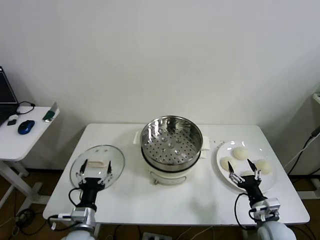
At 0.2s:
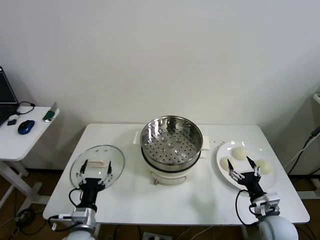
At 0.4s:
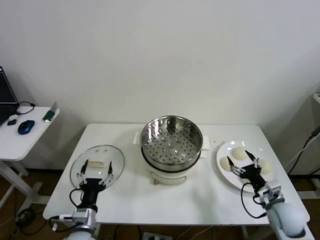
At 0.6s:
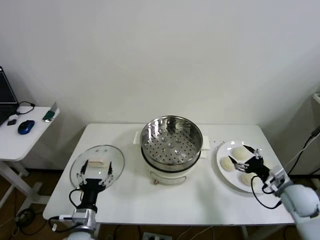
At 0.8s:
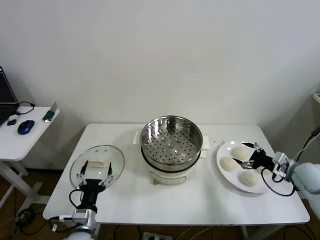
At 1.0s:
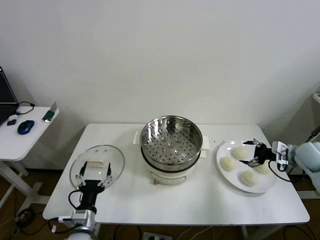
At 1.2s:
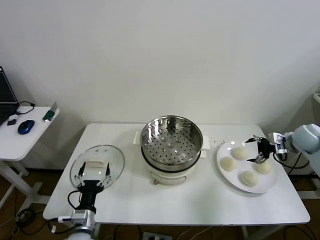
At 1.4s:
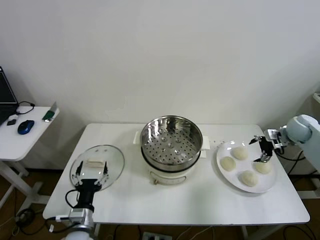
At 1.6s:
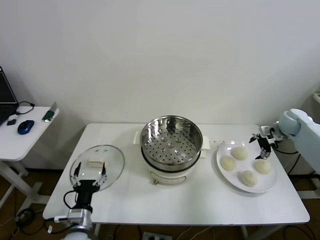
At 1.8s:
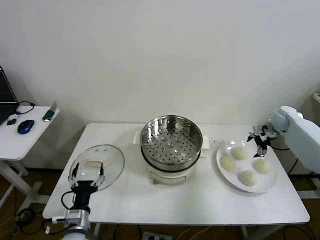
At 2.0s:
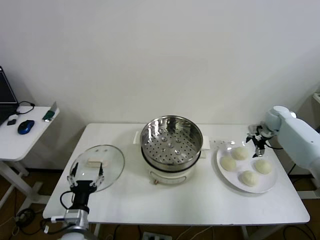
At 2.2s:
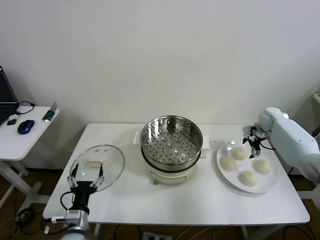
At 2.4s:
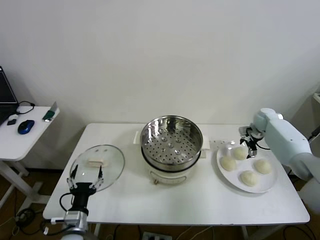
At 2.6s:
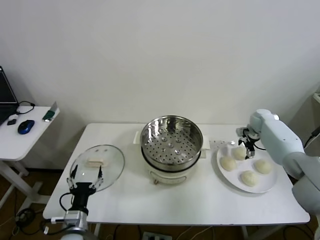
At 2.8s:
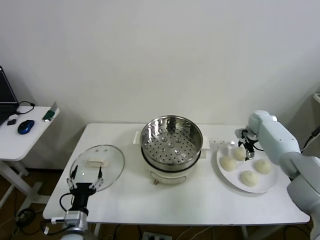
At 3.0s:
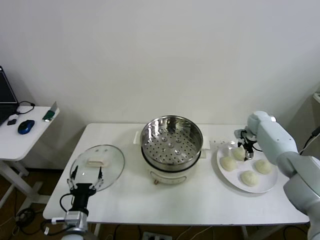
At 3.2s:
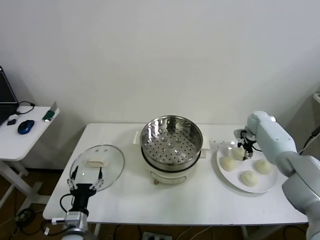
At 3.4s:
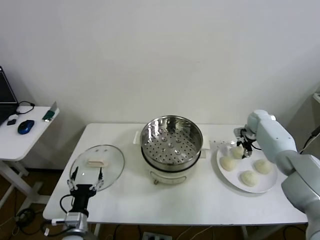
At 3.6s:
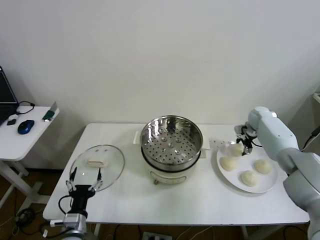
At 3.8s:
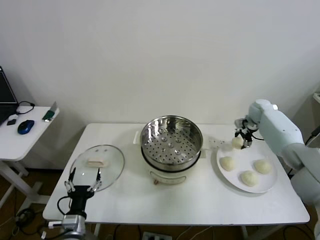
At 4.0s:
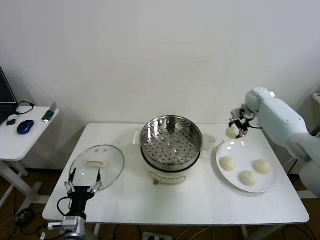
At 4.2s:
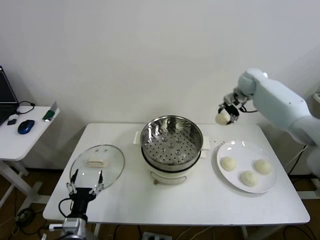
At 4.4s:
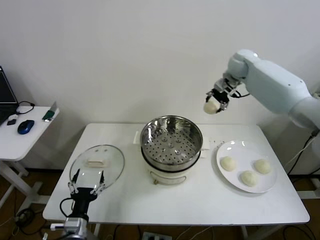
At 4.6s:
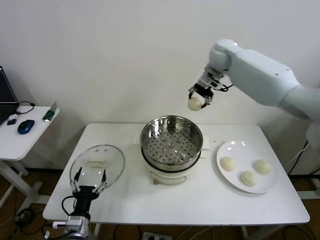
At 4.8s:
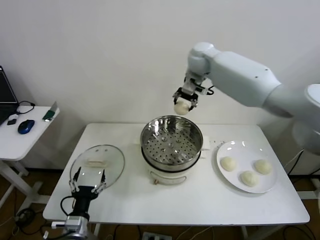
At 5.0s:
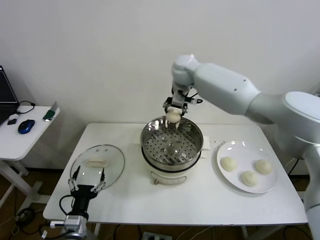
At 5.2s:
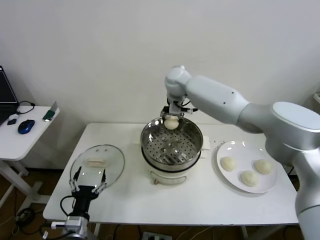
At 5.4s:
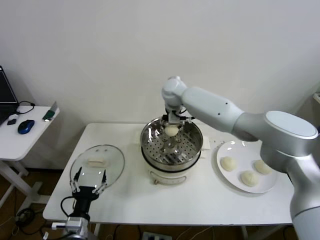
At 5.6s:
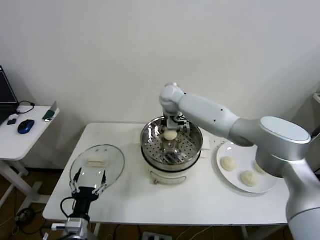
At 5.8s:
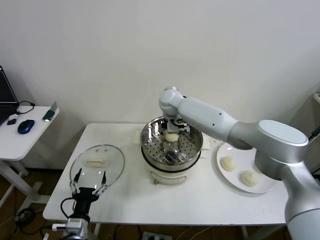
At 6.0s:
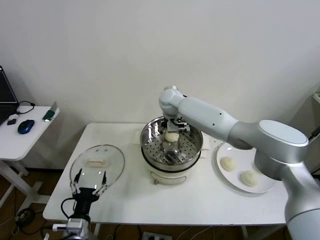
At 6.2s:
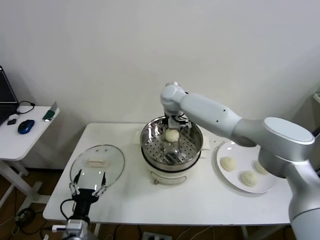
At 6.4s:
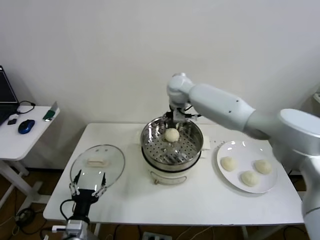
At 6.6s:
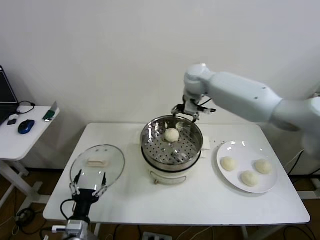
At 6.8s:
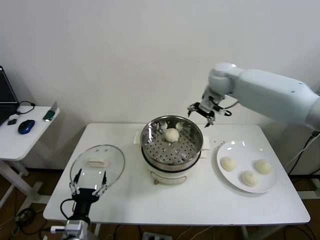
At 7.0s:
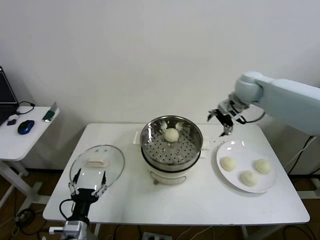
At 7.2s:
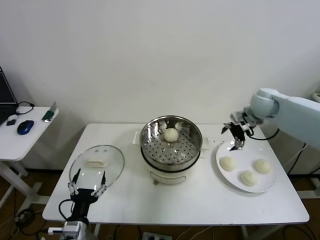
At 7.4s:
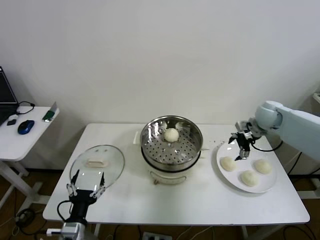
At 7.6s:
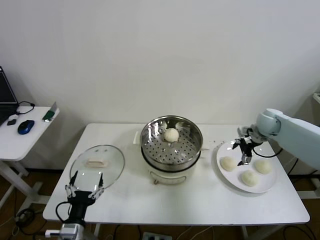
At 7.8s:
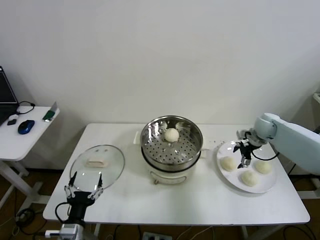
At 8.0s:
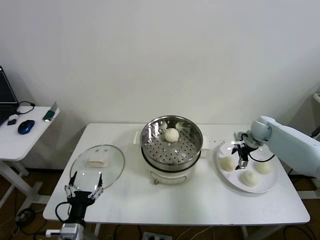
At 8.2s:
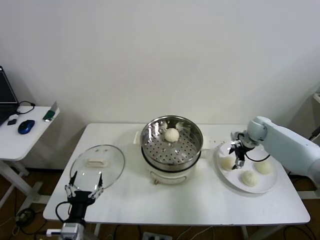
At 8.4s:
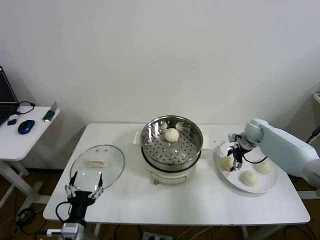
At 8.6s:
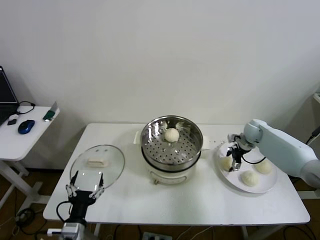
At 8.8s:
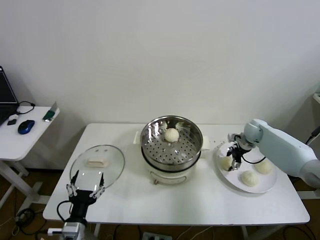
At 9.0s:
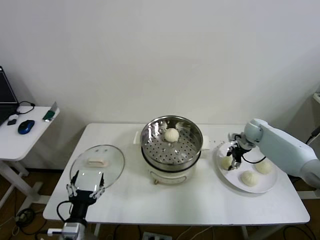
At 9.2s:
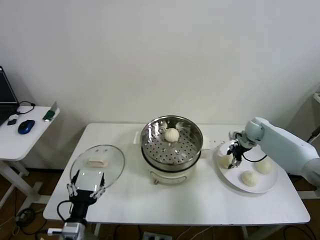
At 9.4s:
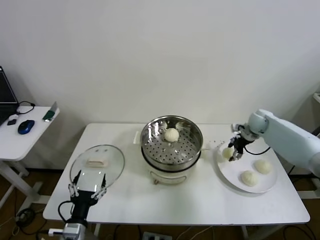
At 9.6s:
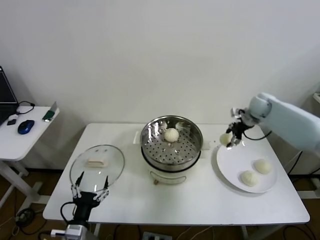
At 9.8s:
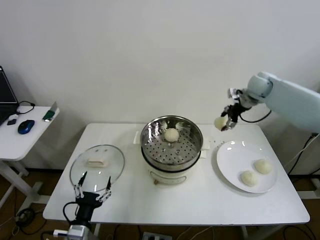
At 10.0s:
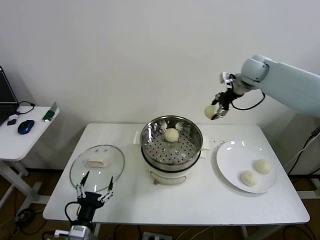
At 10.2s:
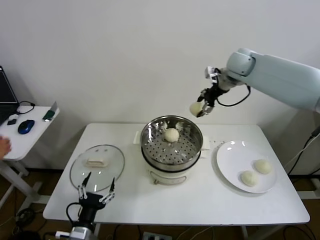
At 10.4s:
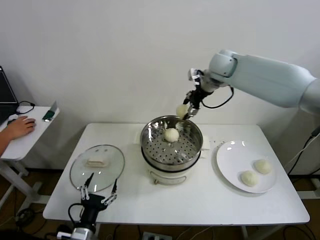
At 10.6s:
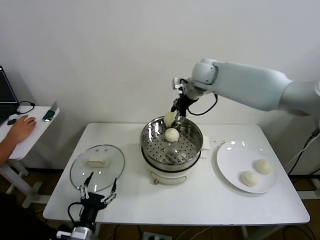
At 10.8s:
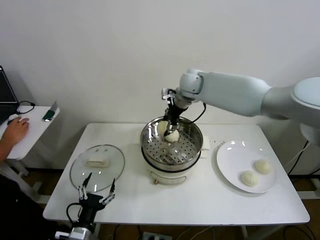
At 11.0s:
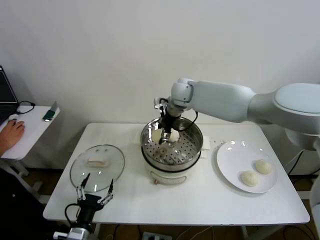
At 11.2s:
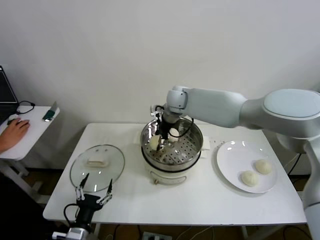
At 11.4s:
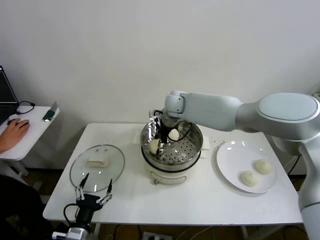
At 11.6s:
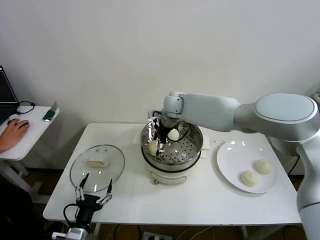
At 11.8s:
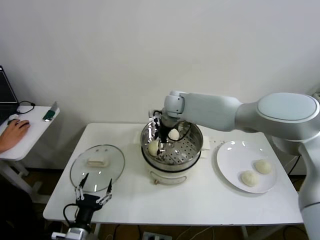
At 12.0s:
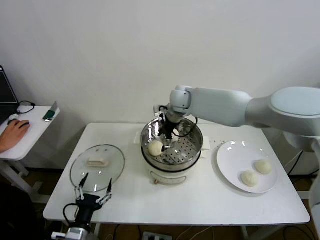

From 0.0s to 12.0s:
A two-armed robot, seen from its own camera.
Step, from 0.0s to 3.2s: Grasp the baozi in the plate with right gripper.
Step, from 3.4s to 6.0s: Place the baozi on the steamer with right gripper.
Step, from 6.2s to 9.0s: Grasp the baozi in the plate with right gripper.
Step, from 9.2s to 11.8s: Place the baozi on the steamer with right gripper.
From 1.6s to 3.0s: The right gripper travels downward, to the left and forward by some 10 cm, and closes up.
From 3.0s to 4.4s: The right gripper is displaced upward and to the left by roughly 35 cm.
From 4.4s to 6.0s: The right gripper moves to the left and downward, about 25 cm, and opens its fingers.
From 6.0s to 7.6s: The right gripper travels to the right by about 35 cm.
From 7.6s to 9.0s: The right gripper travels downward by roughly 5 cm, and closes up.
From 9.0s to 10.4s: The right gripper goes some 35 cm upward and to the left.
From 10.4s to 12.0s: The right gripper goes about 15 cm downward and to the left, and opens its fingers.

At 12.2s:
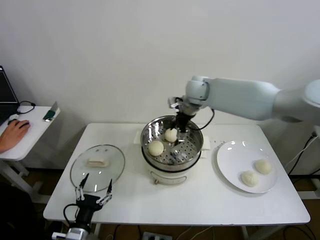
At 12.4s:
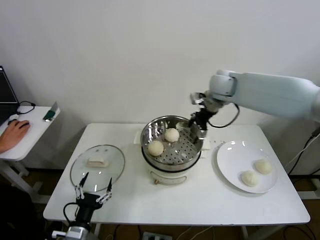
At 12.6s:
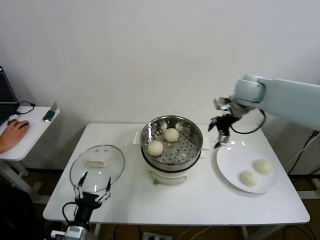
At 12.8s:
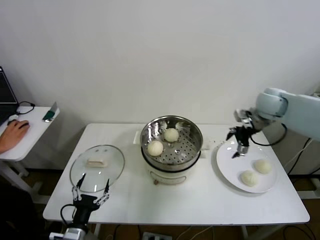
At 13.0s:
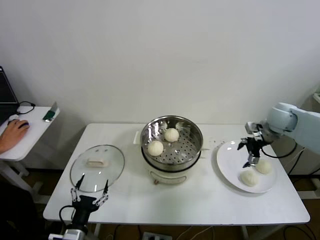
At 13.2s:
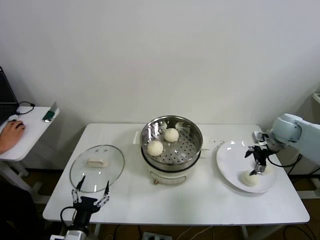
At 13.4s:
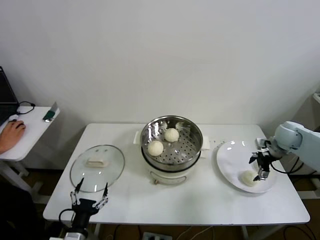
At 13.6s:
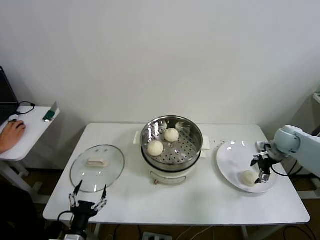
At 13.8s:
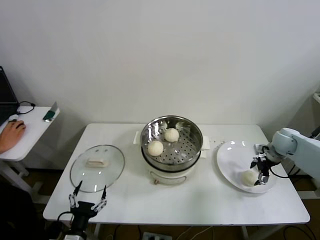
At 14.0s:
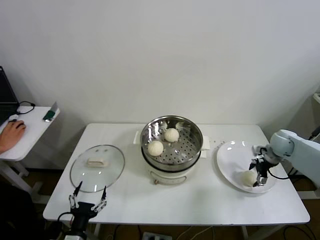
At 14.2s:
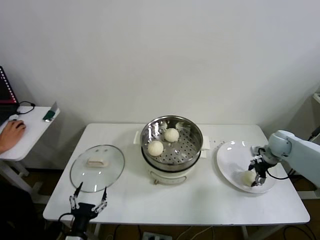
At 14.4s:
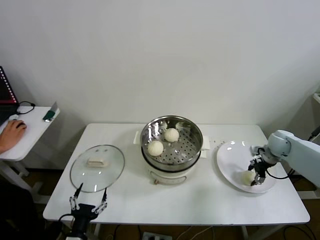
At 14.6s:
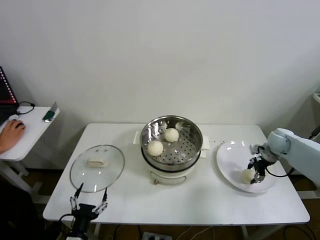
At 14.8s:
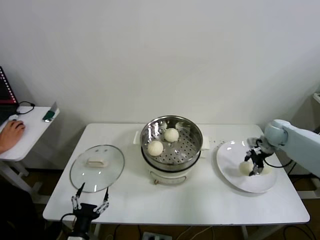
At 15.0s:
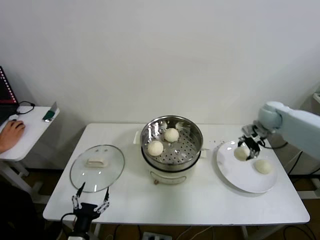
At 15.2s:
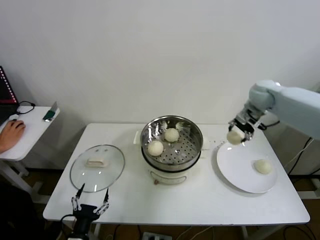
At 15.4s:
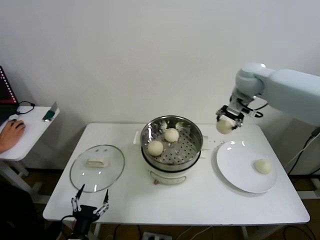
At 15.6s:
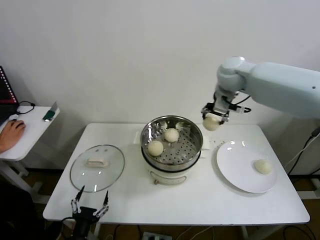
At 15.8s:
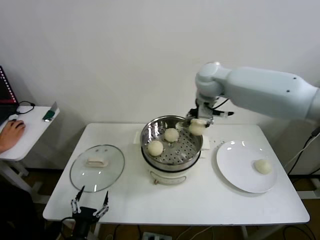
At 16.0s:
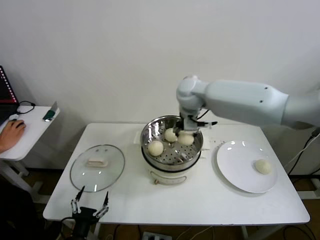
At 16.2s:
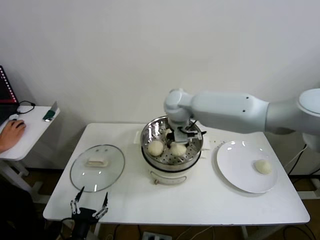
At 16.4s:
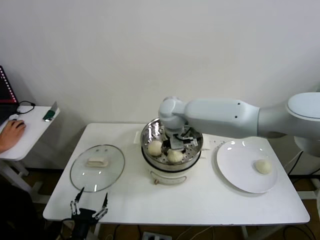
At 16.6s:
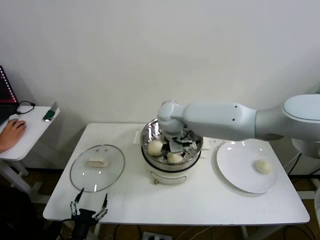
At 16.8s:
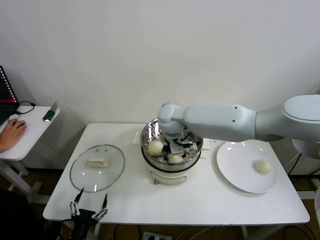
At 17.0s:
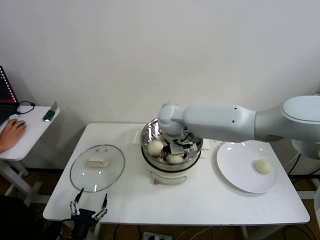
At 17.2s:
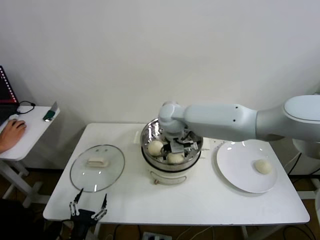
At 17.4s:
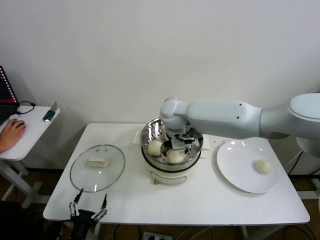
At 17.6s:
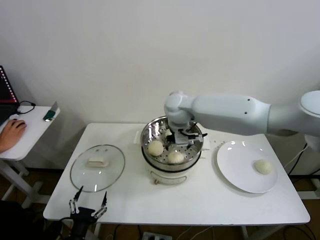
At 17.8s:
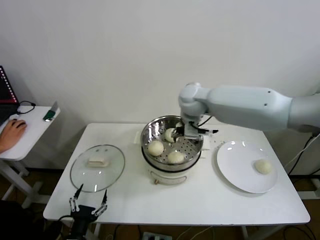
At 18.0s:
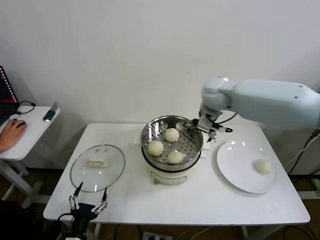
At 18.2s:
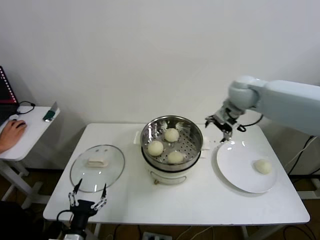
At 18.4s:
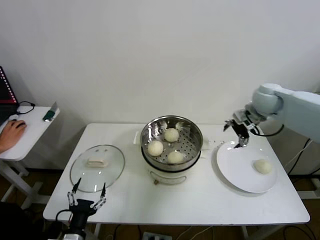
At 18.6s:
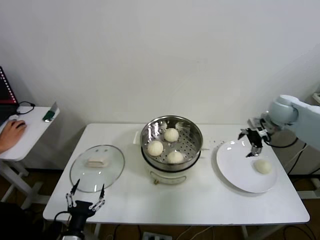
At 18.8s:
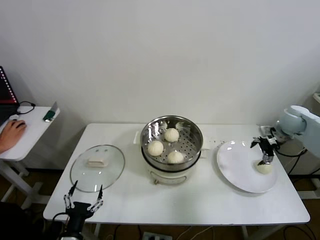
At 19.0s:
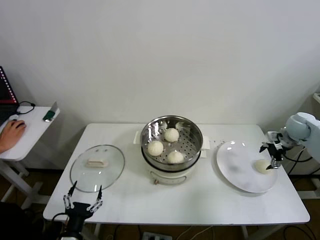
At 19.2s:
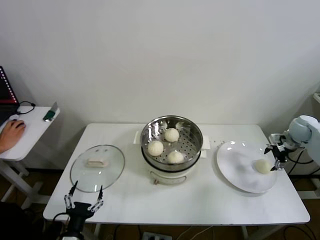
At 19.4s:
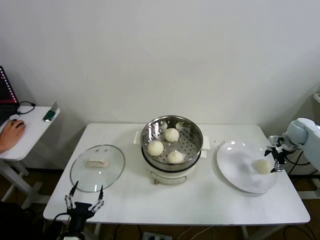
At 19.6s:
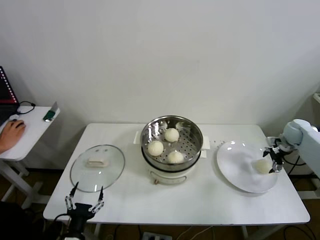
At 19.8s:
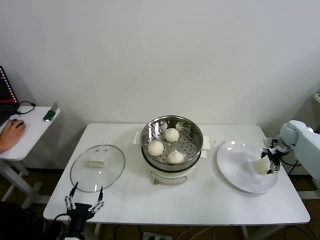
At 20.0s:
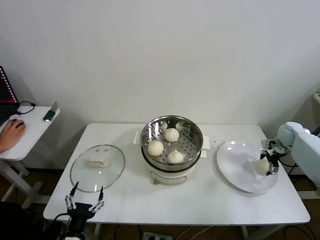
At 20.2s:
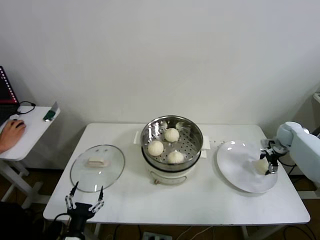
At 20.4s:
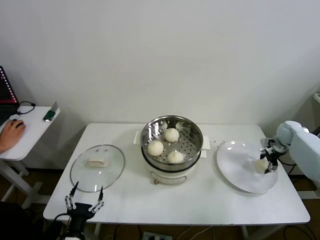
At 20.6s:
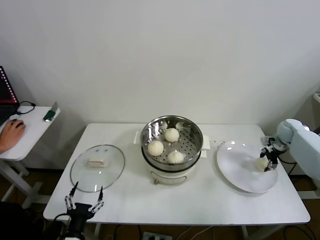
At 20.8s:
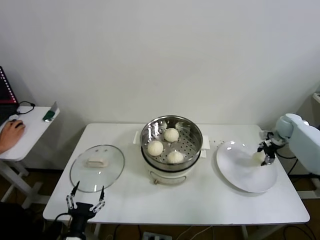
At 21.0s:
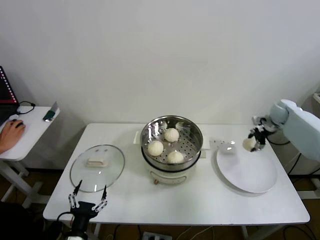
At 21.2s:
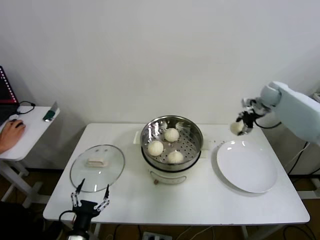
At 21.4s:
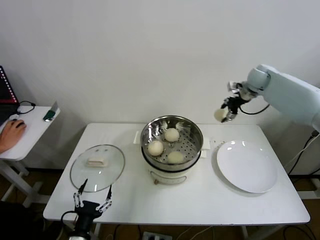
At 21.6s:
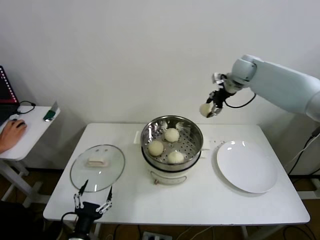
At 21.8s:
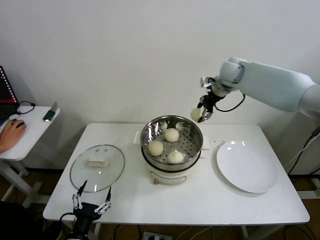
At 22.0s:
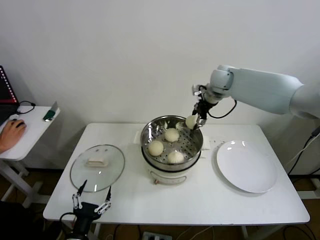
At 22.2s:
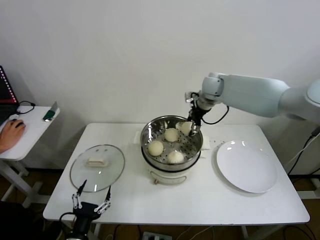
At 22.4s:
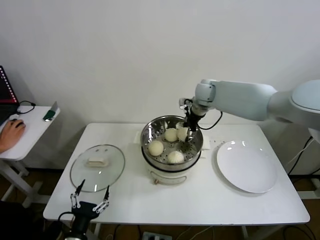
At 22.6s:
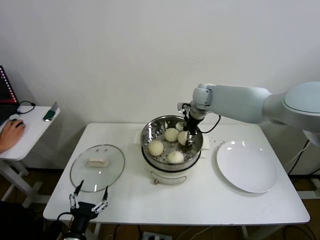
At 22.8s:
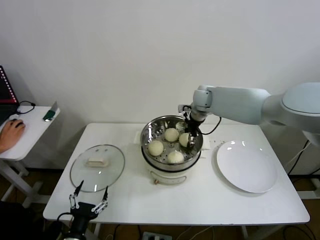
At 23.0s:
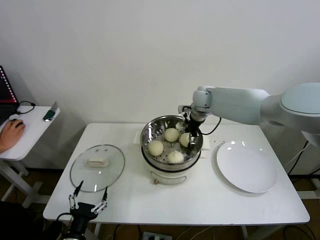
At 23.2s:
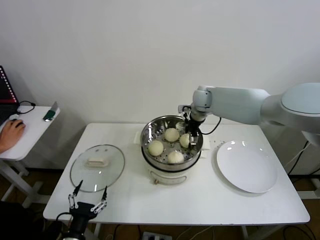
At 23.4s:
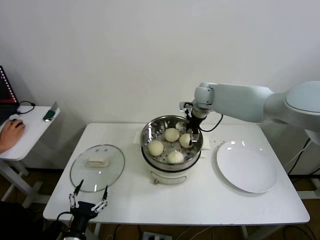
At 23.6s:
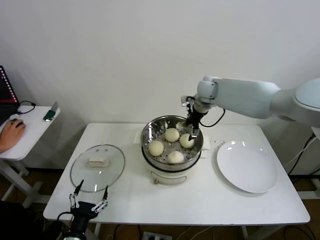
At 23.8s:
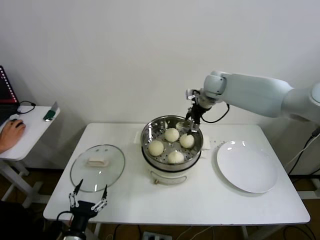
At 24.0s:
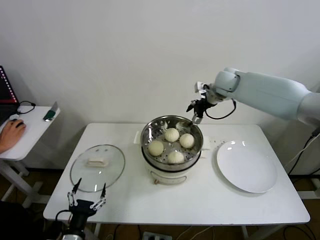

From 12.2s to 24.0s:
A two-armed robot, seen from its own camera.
Step, from 12.2s to 14.2s: Grasp the baozi in the plate with right gripper.
Step, from 14.4s to 17.2s: Place the baozi on the steamer with right gripper.
Step, from 17.6s to 20.2s: Grasp the baozi in the plate with right gripper.
Step, from 20.4s to 23.2s: Place the baozi on the steamer with right gripper.
From 12.2s to 13.6s: The right gripper is displaced to the right and downward by approximately 35 cm.
From 13.6s to 15.2s: The right gripper is displaced upward, to the left and forward by approximately 25 cm, and closes up.
From 15.2s to 16.6s: The right gripper heads to the left, covering approximately 30 cm.
From 16.6s to 18.2s: The right gripper moves to the right, roughly 25 cm, and opens.
From 18.2s to 19.6s: The right gripper shifts about 30 cm to the right and downward.
From 19.6s to 21.0s: The right gripper goes about 10 cm forward, upward and to the left, and closes.
From 21.0s to 22.6s: The right gripper goes about 30 cm to the left.
From 22.6s to 24.0s: The right gripper goes approximately 10 cm to the right and upward, and opens up.
